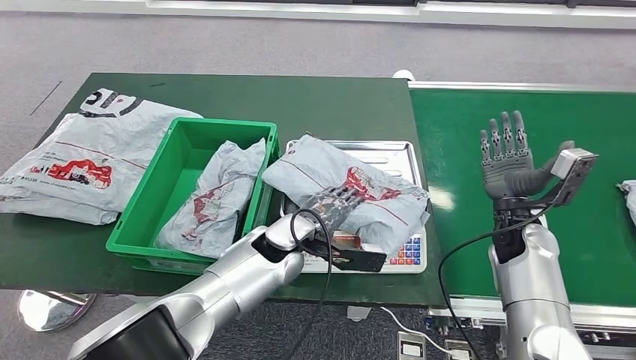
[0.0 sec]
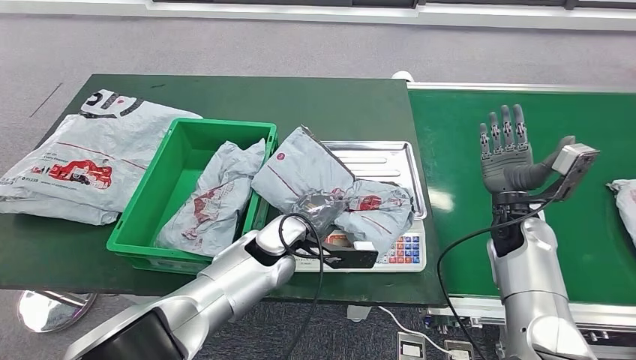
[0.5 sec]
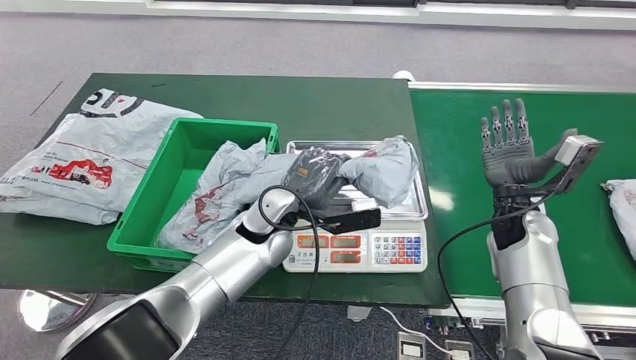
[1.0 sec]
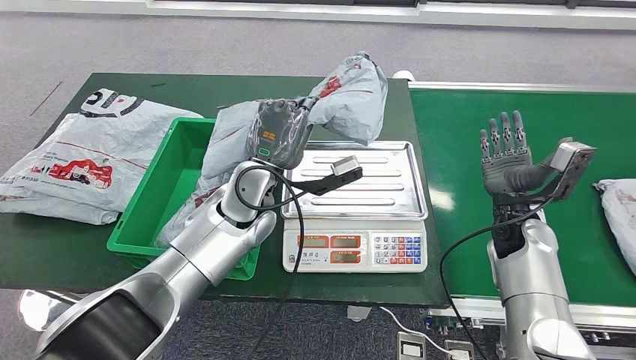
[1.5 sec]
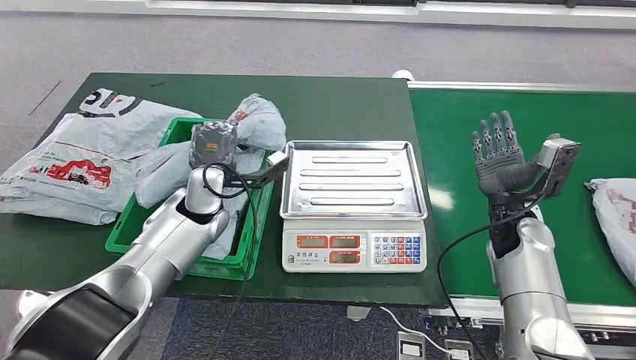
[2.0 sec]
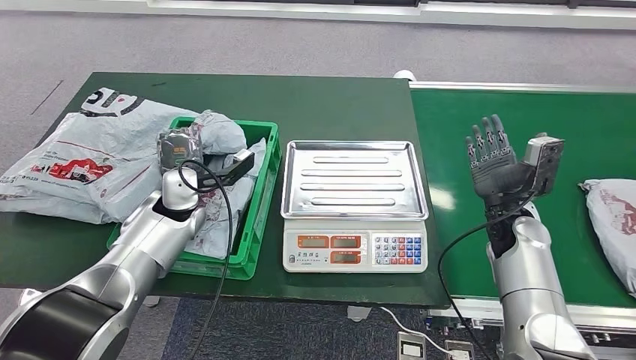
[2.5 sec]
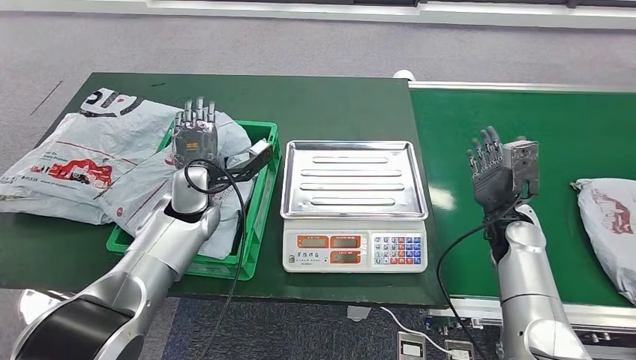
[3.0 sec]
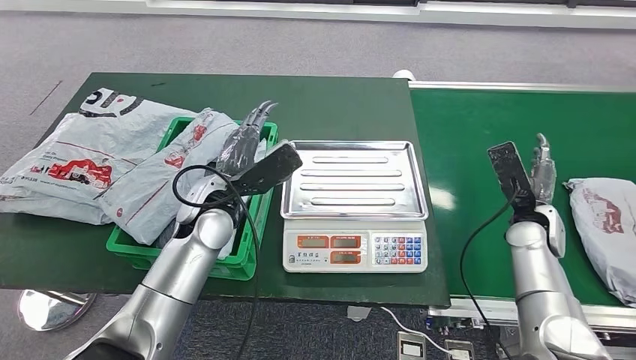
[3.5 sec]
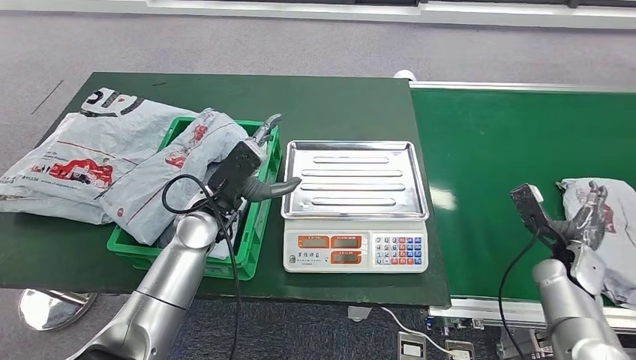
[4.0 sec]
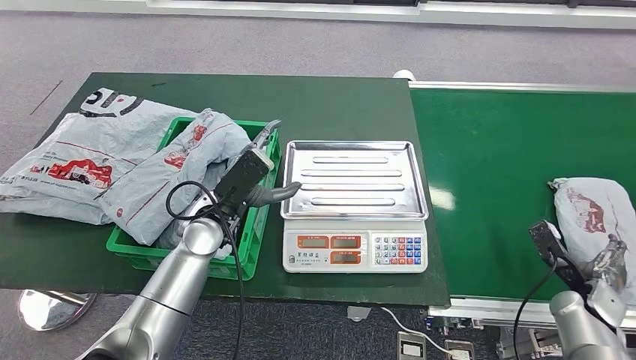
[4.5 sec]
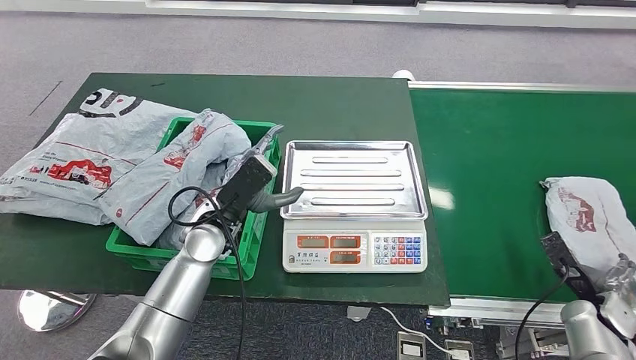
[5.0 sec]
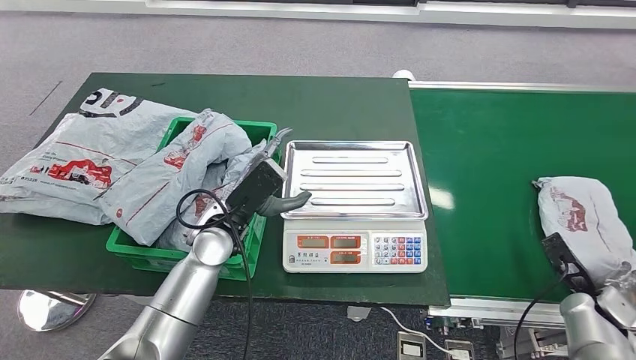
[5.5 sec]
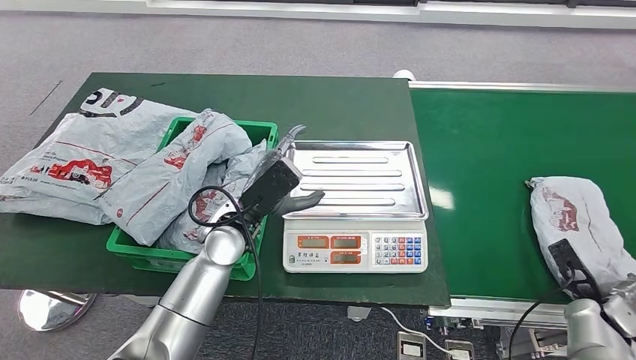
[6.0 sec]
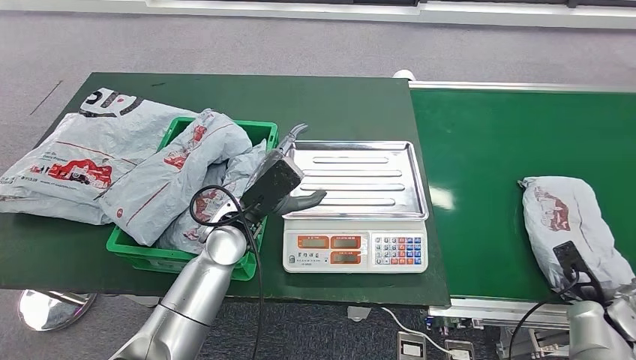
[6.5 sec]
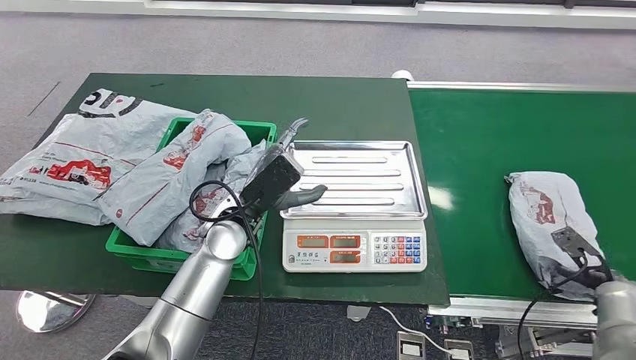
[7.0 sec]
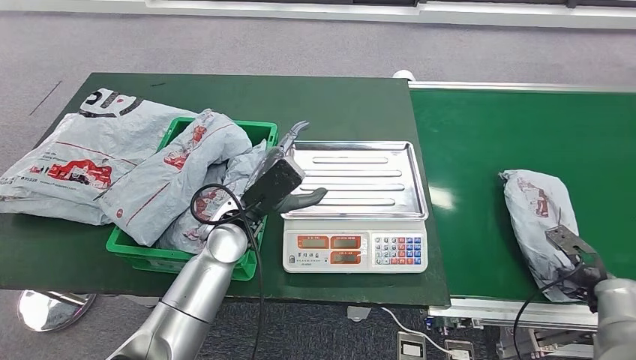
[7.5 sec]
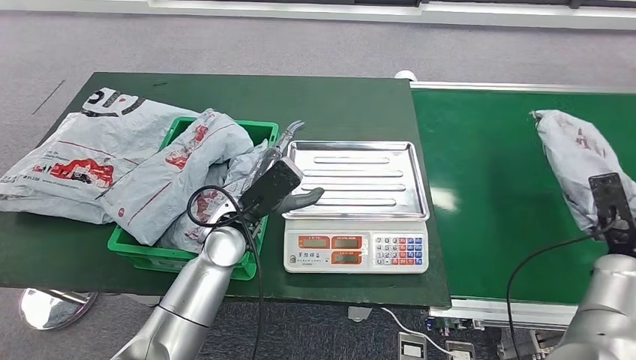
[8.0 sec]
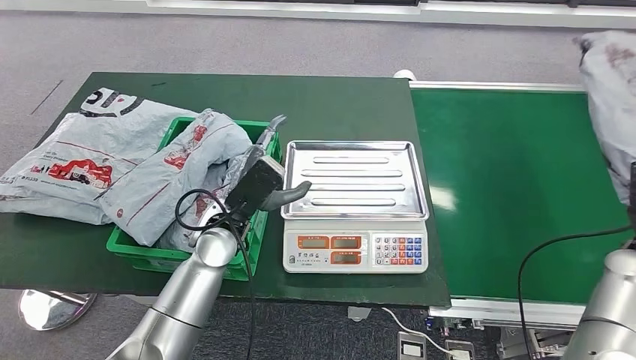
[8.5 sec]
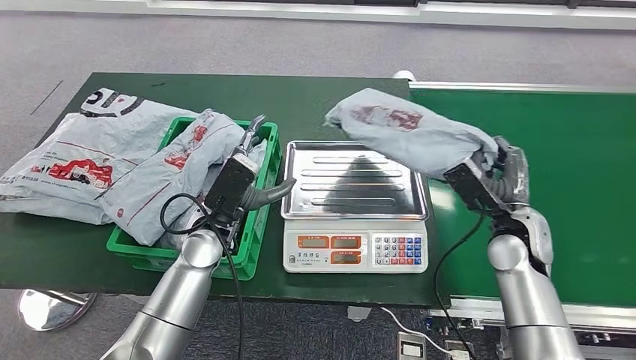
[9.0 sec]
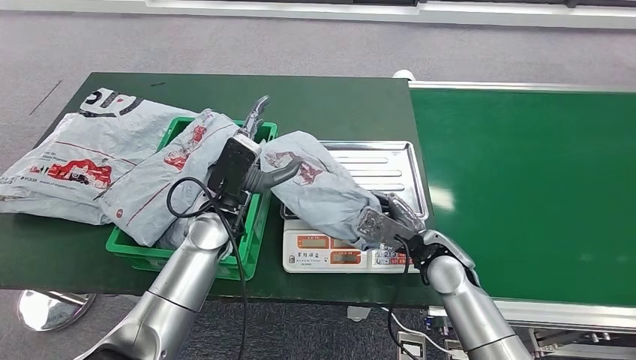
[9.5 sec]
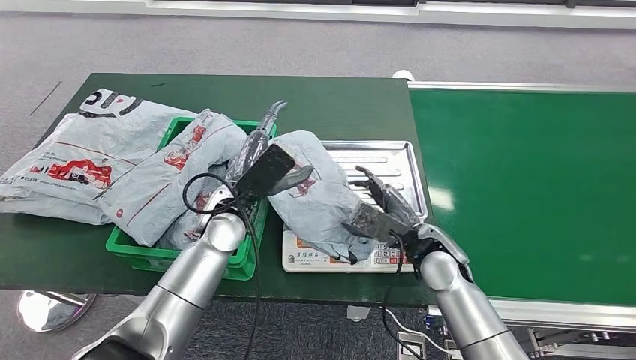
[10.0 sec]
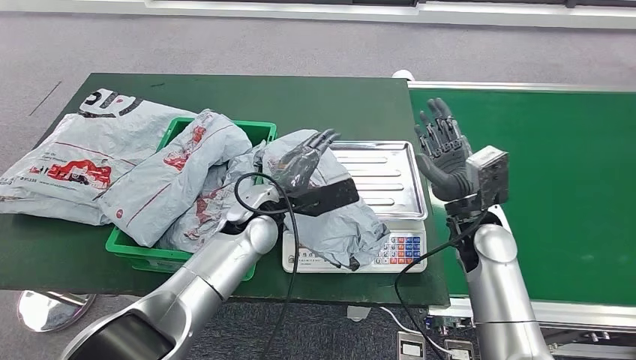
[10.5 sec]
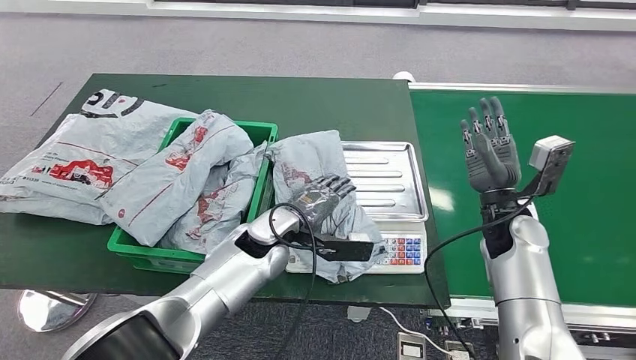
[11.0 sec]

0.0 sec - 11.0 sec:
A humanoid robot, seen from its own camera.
Step, 0.0 sec - 1.5 sec: Pick up the parcel from the inbound machine.
Step, 2.0 sec - 5.5 sec: Place the parcel into the delivery box.
Step, 6.0 sec - 8.5 sec: Pick up the parcel from the conveyor belt.
3.5 sec - 5.5 sec: The right hand goes some 20 cm to the right, backward and downward.

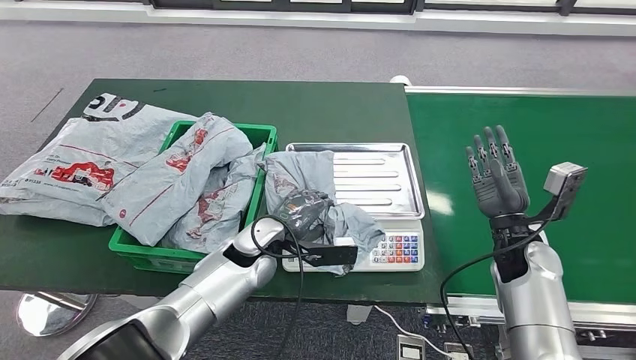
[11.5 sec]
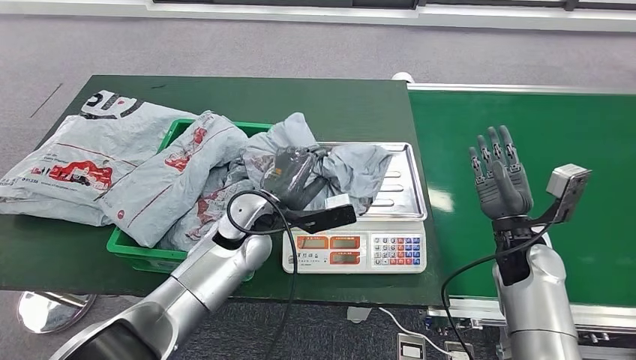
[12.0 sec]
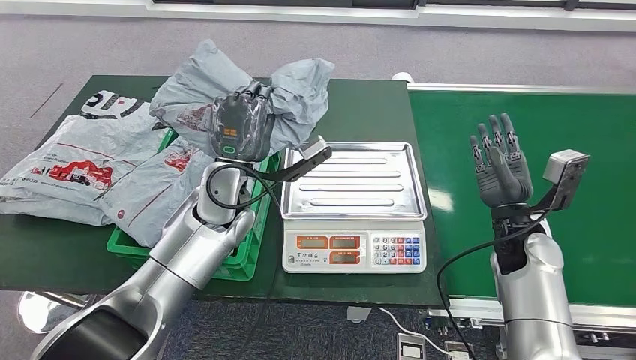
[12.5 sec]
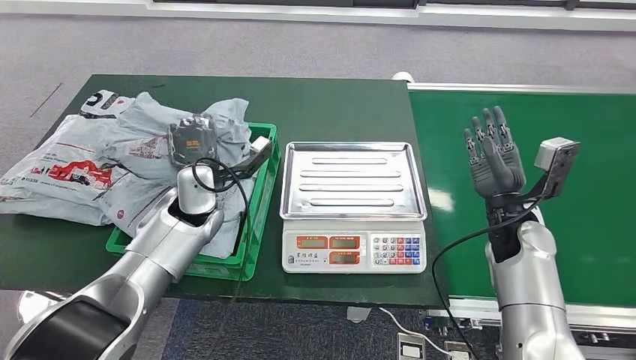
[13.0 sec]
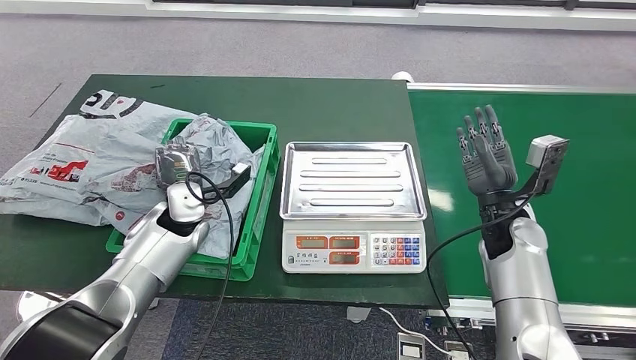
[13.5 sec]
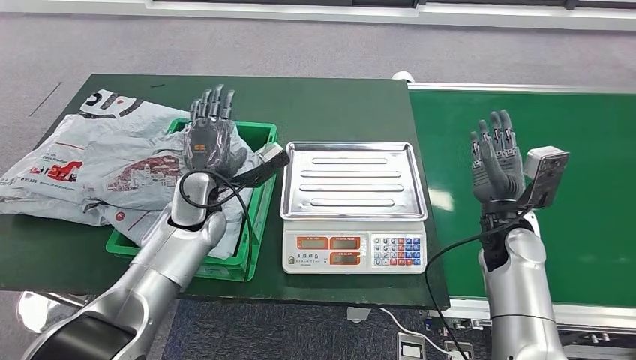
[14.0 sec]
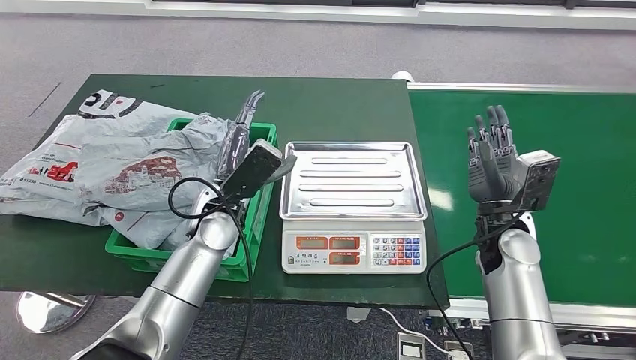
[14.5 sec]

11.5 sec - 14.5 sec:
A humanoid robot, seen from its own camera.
Step, 11.5 sec - 12.5 sec: Pick up the parcel from the inbound machine.
Step, 13.0 sec - 14.5 sec: Place the parcel into the delivery box.
